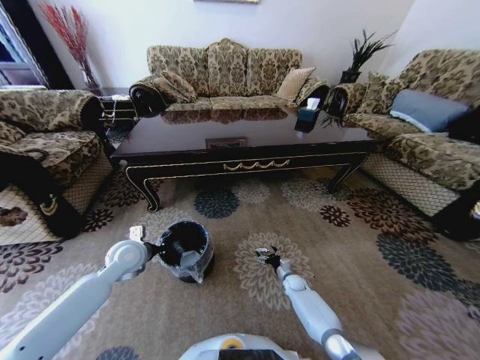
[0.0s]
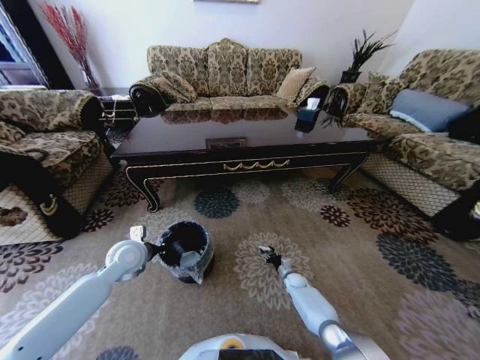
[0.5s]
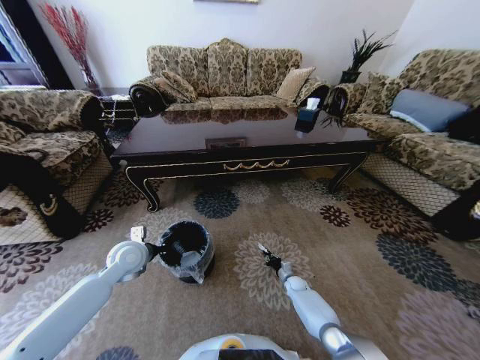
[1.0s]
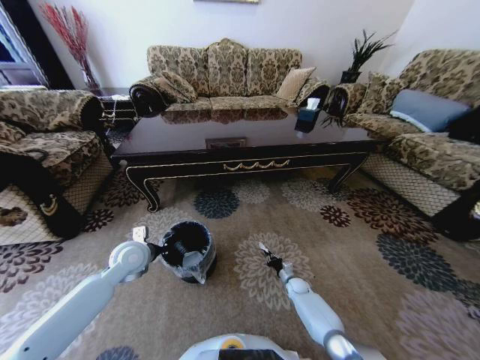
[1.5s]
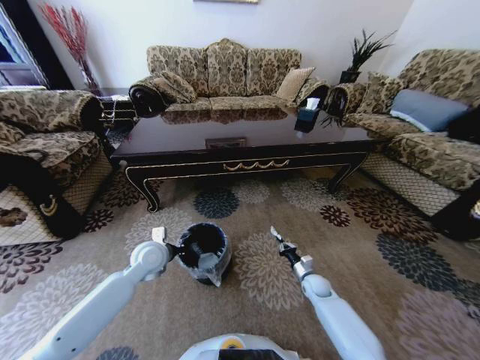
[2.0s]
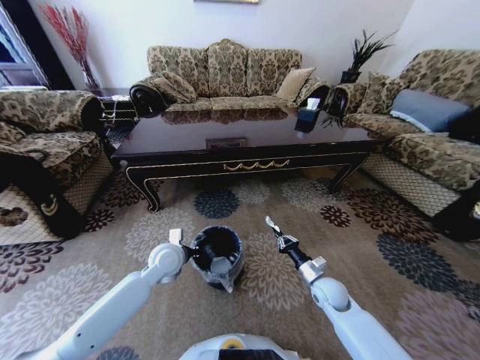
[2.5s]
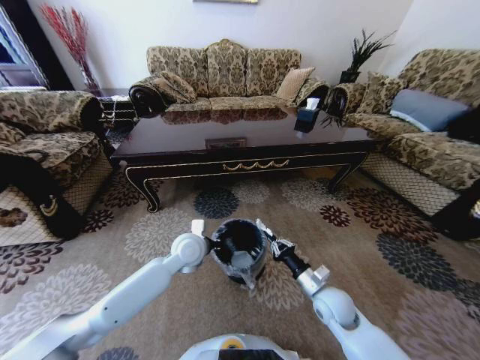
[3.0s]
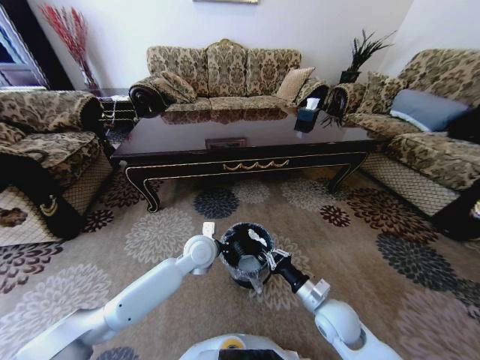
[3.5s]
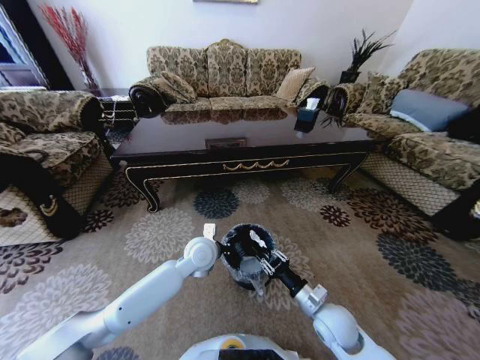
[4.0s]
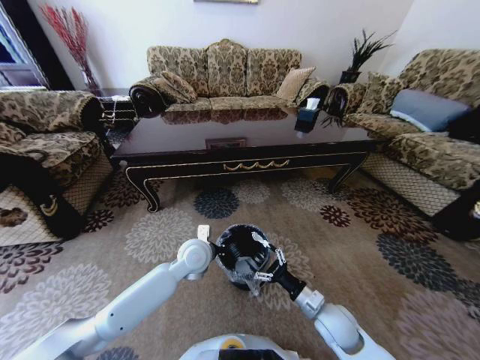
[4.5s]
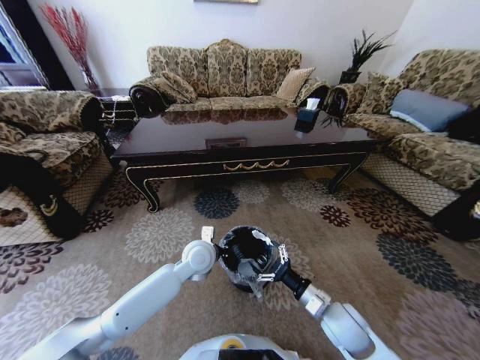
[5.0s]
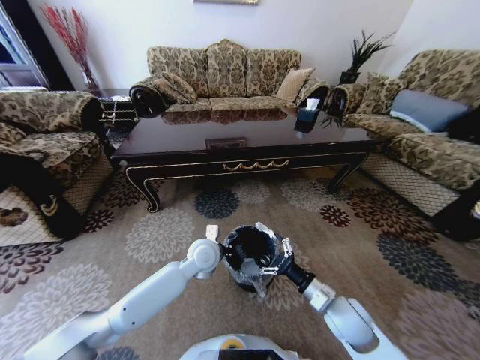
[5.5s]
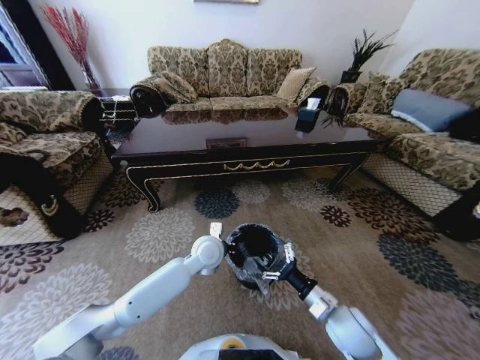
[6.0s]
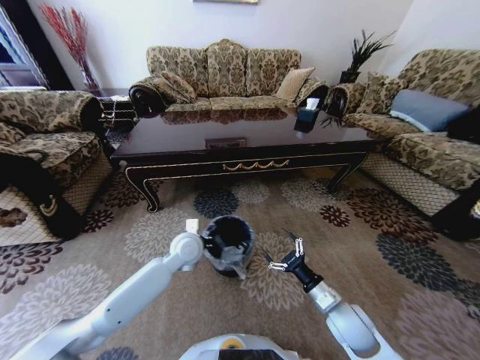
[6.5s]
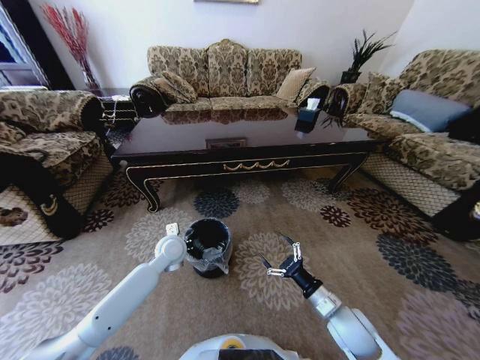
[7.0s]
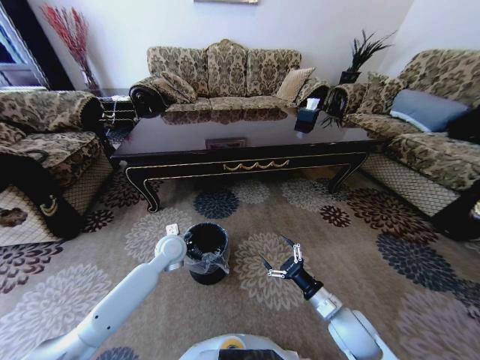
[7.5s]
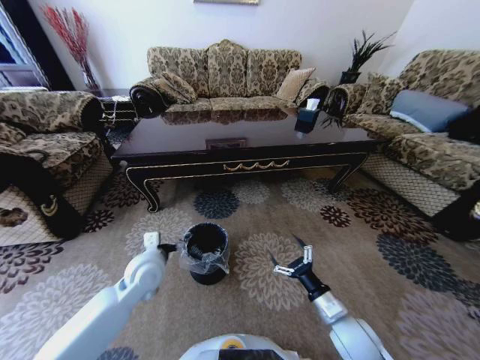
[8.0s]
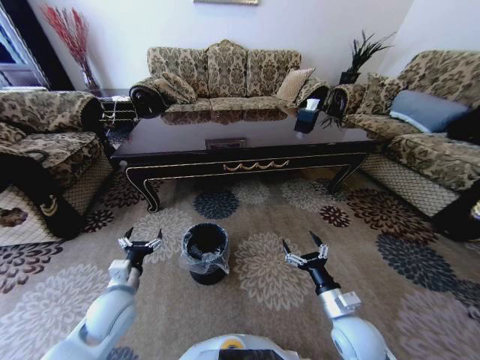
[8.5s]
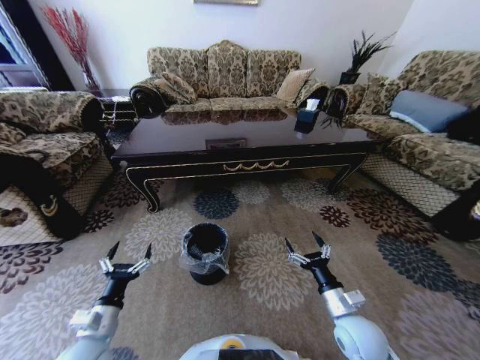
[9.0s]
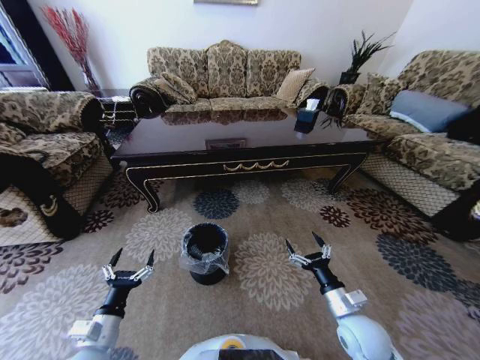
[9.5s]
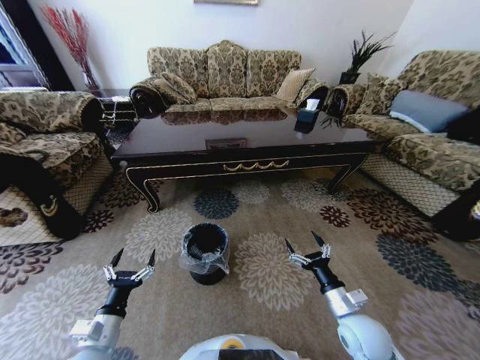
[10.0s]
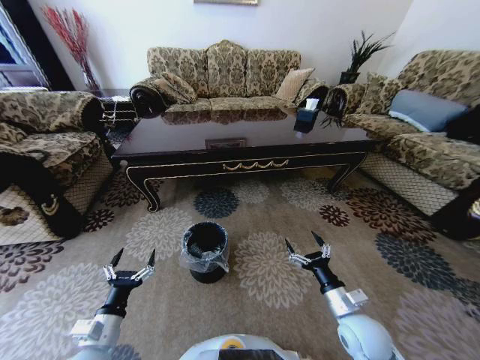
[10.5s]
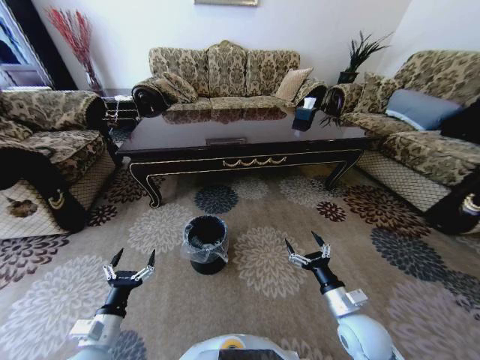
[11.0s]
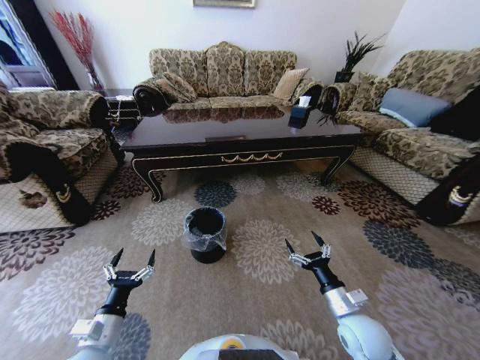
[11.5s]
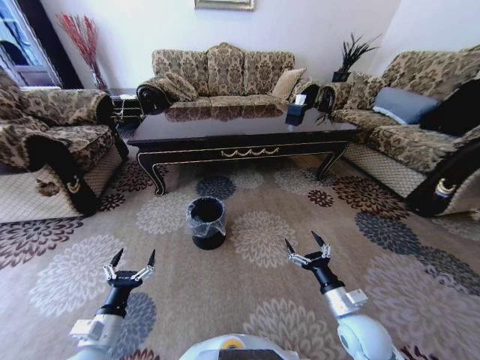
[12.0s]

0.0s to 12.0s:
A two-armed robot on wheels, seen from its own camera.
Task of the whole recording: Move to the front of the table and pick up the trash from the floor, then place it into the trash bin.
0.0s to 2.0s: The right gripper moves upward, some 10 cm, and closes up; the left gripper shifts some 5 cm to the right.
2.0s to 4.0s: The left gripper is displaced to the right by approximately 15 cm, while the right gripper heads upward, backward and to the left, covering about 20 cm.
4.0s to 6.0s: The right gripper opens its fingers.
6.0s to 8.0s: The left gripper moves to the left, approximately 15 cm, and opens its fingers.
8.0s to 10.0s: The left gripper goes some 20 cm backward and to the left.

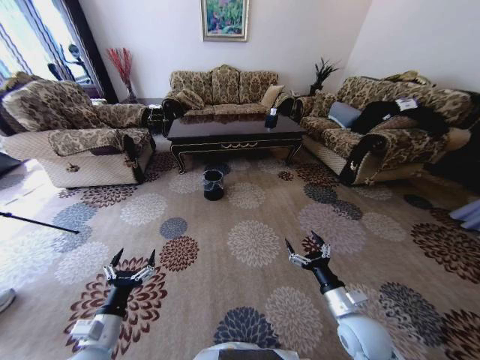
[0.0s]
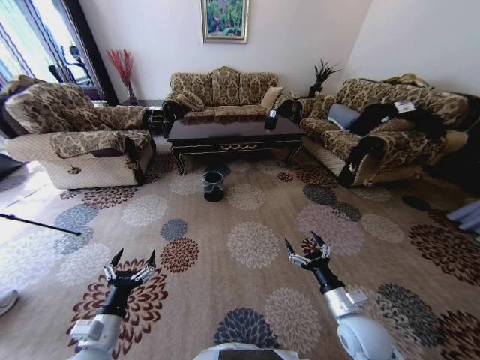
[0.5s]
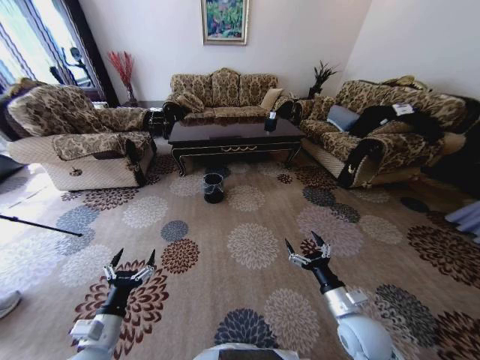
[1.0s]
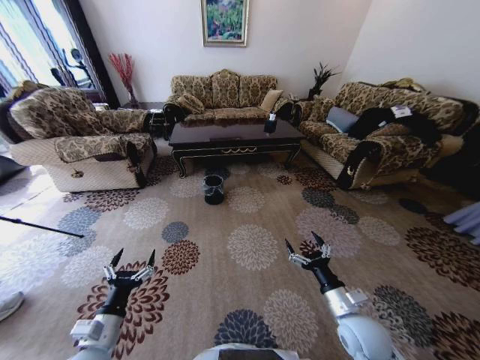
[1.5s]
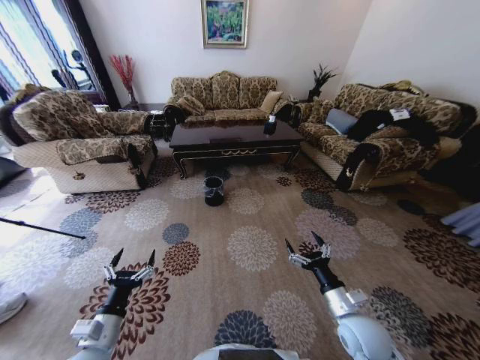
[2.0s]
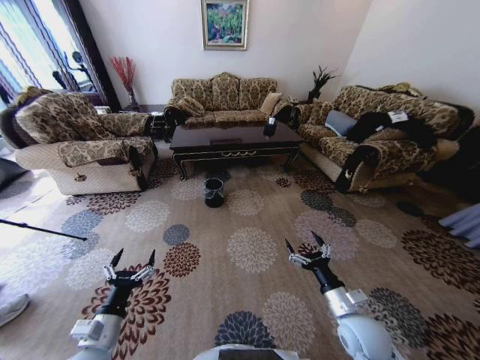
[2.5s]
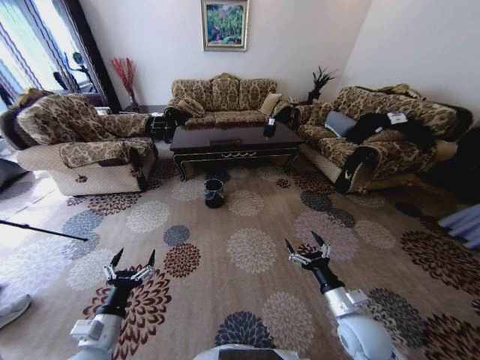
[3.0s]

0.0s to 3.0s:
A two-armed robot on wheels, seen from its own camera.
Task of the whole recording: Move to the front of the table and pick up the trash from the floor, then place it into the trash bin.
1.5s to 3.0s: Both grippers stay about where they are.
